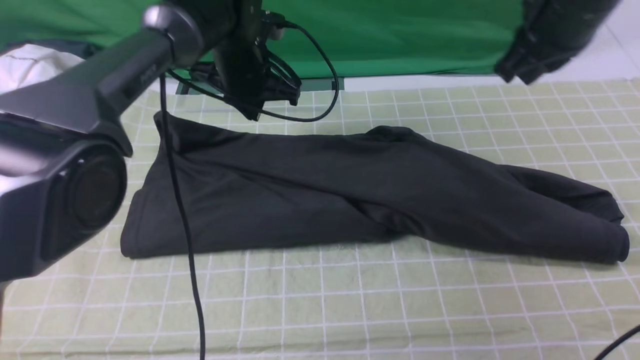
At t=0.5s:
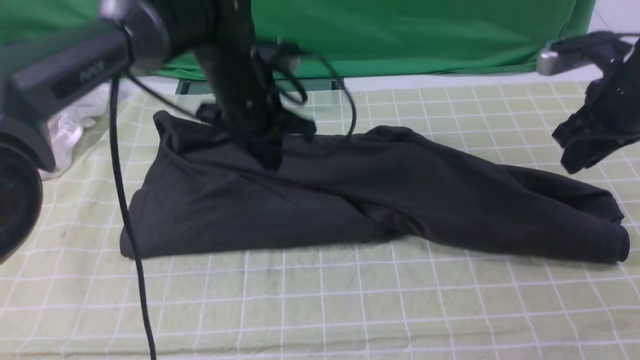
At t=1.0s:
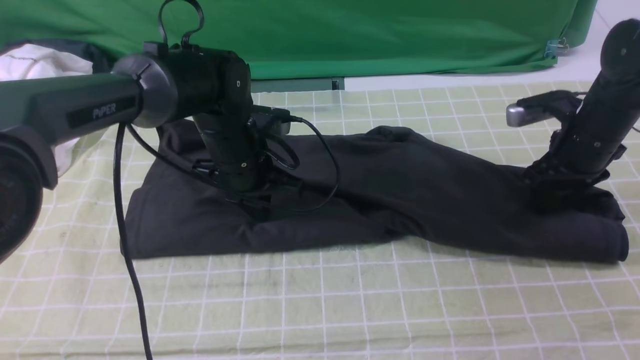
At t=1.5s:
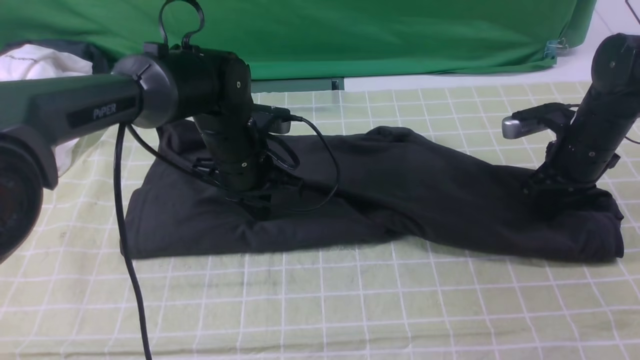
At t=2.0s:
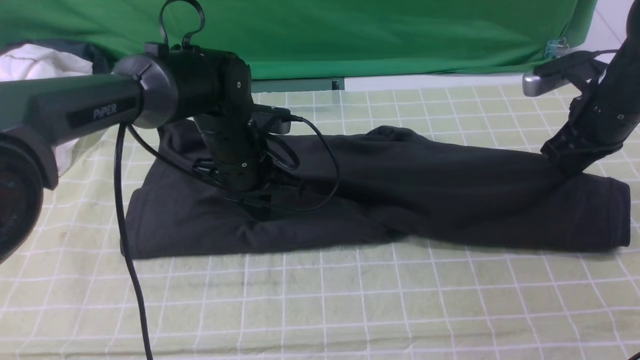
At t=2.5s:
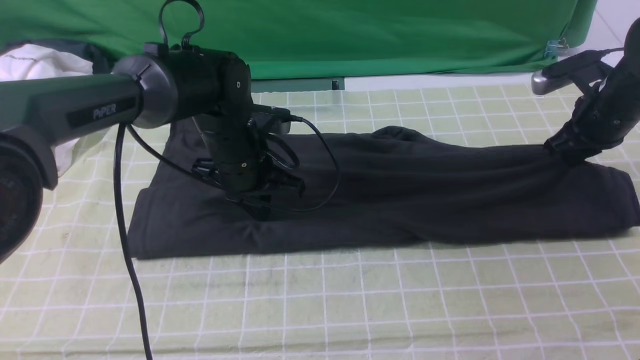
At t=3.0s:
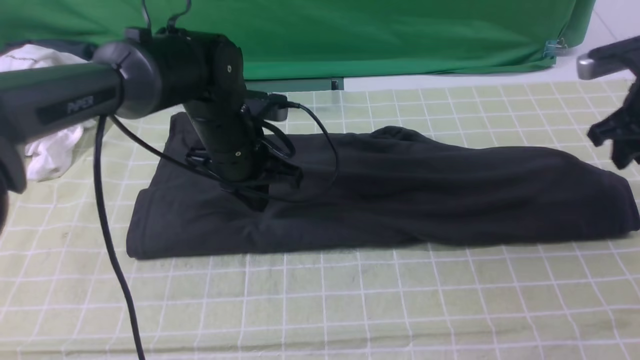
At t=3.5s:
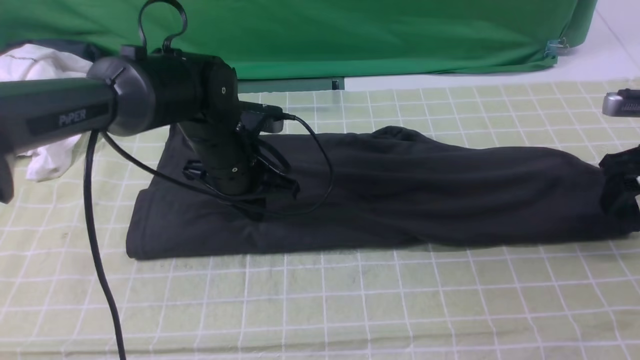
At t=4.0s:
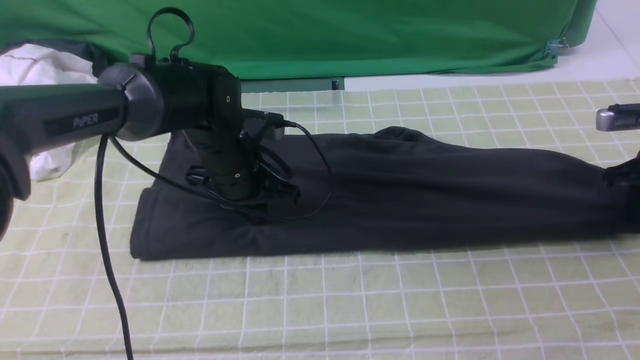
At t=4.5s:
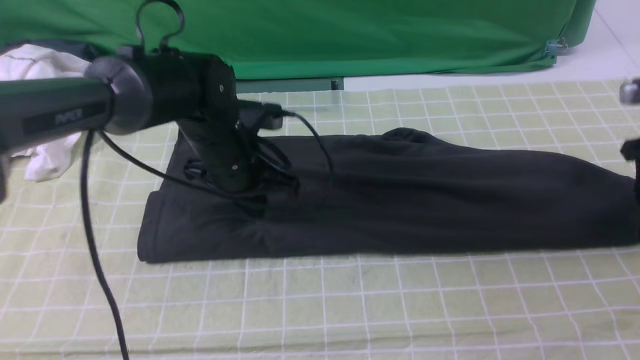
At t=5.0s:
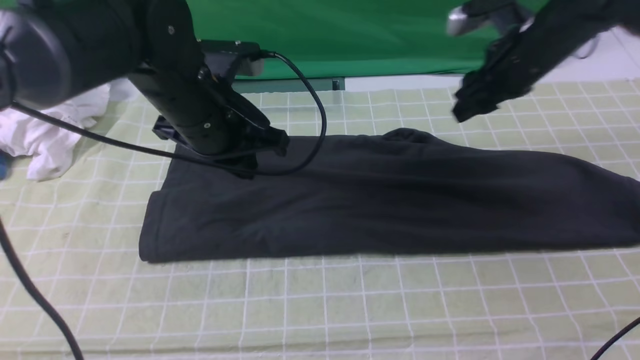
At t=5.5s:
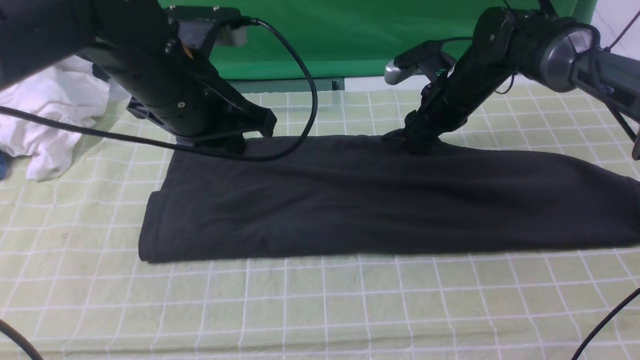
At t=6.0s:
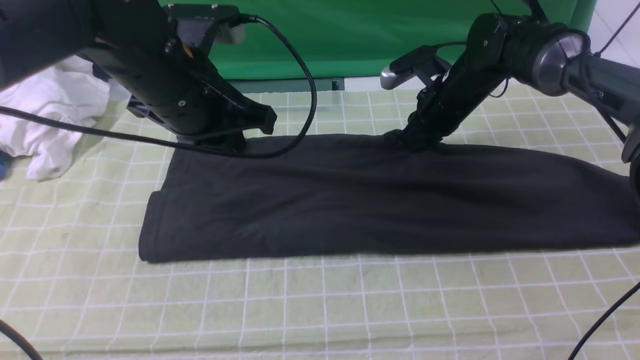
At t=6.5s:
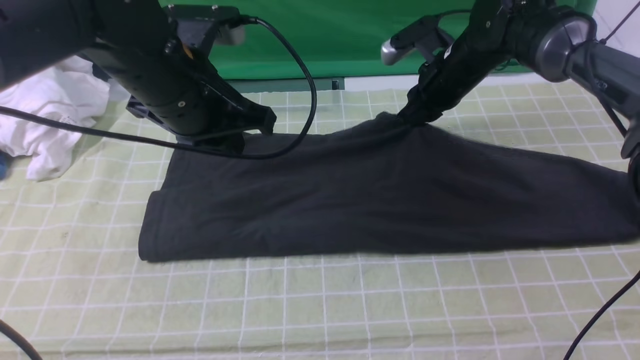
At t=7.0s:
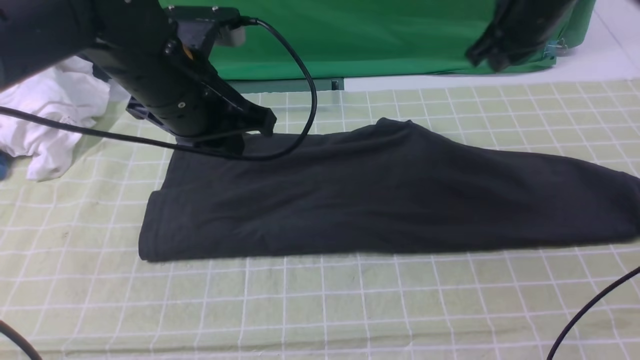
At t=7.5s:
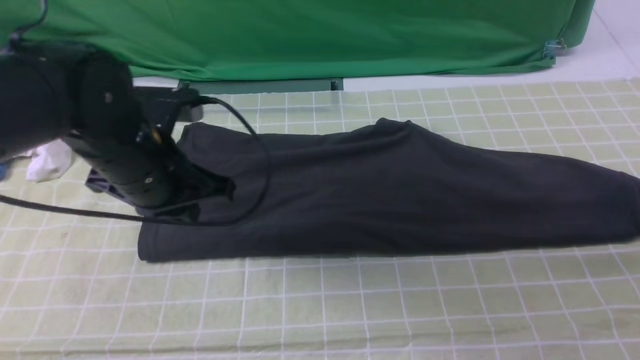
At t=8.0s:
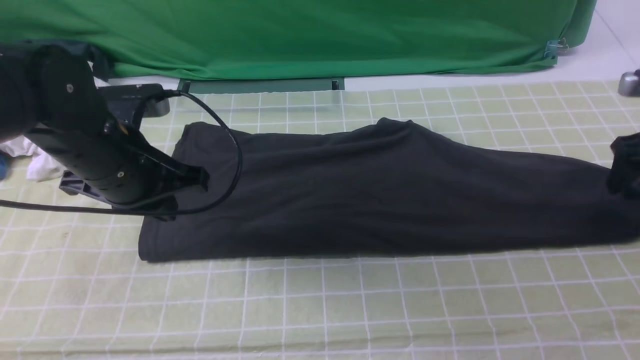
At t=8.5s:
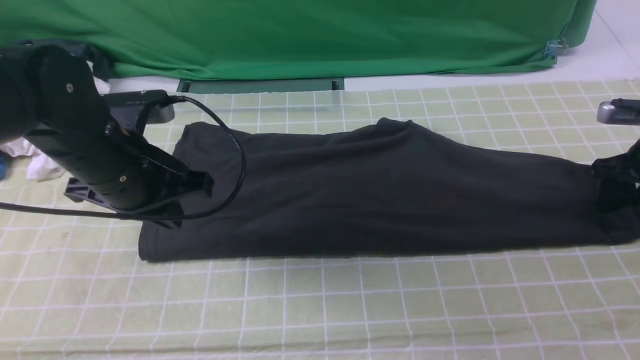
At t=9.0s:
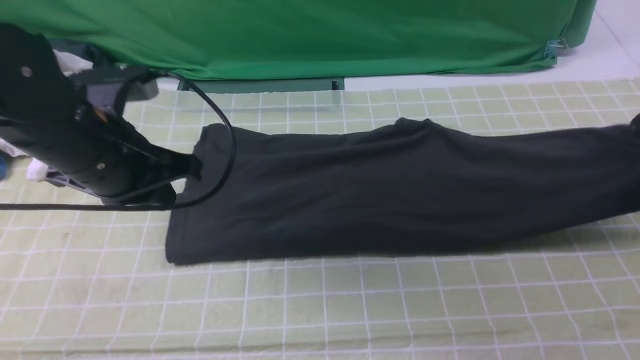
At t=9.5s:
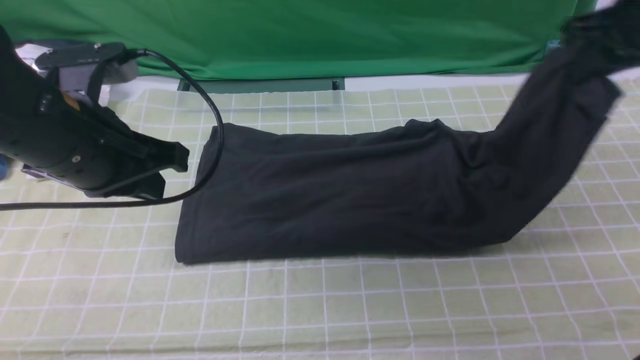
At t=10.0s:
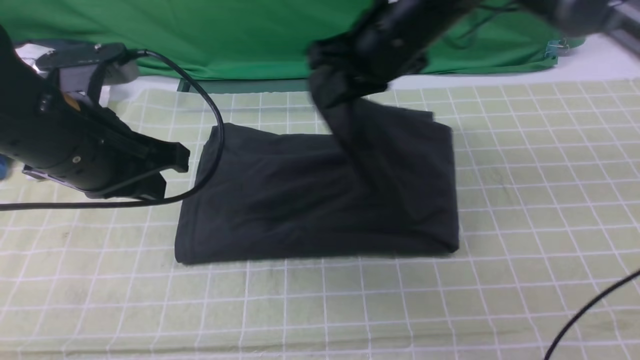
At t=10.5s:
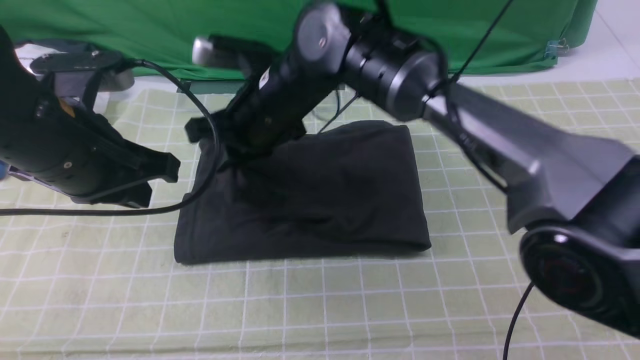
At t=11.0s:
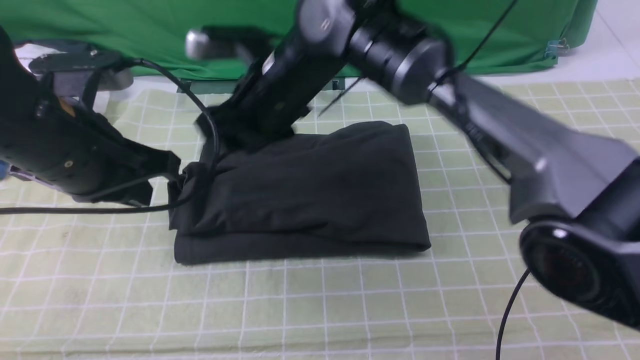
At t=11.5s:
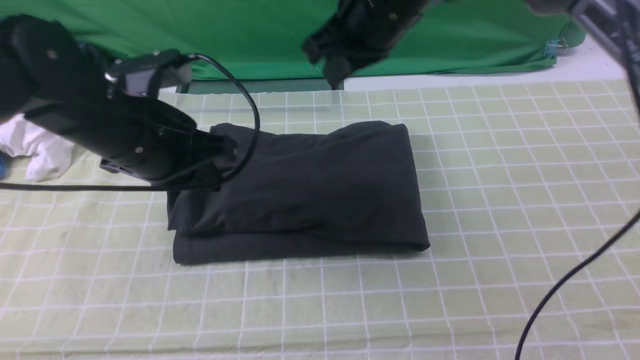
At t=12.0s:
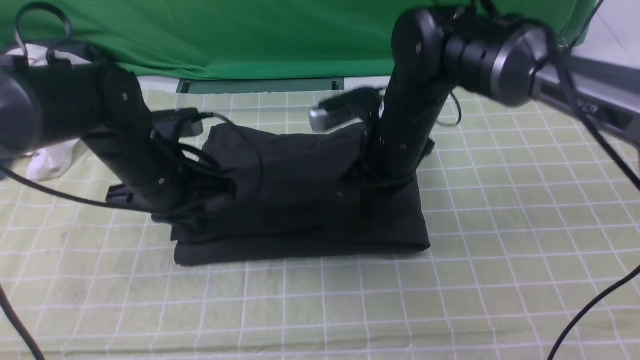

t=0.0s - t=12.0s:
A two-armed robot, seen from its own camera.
Step, t=0.0s - t=8.5s: use the right arm to clamp the right edge of the fabric.
Step, t=9.0s - t=11.0s: use the right arm to drag the right edge of the fabric to the left and folds it over the left edge.
t=0.0s - t=2.0s: The left gripper heads backward and downward, covering about 10 cm; the right gripper goes roughly 15 cm downward and to the right, and opens, then closes again.
t=2.0s - t=4.0s: The right gripper shifts about 10 cm to the right, and opens and closes again.
t=4.0s - t=6.0s: The right gripper is displaced to the left and forward by some 25 cm, and opens and closes again, while the left gripper goes some 15 cm upward.
t=6.0s - t=8.0s: The left gripper goes about 10 cm to the left and downward, while the right gripper shifts some 25 cm to the right, and opens up.
t=8.0s - t=10.0s: The right gripper is displaced to the left by roughly 35 cm, and closes its fingers, while the left gripper shifts about 5 cm upward.
t=10.0s - t=12.0s: The left gripper heads downward and forward, covering some 15 cm. Meanwhile the right gripper is displaced downward by some 10 cm, travels to the left and back again, about 10 cm each way, and opens, then closes once more.

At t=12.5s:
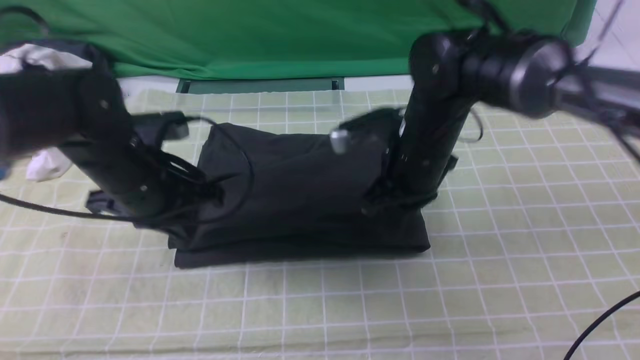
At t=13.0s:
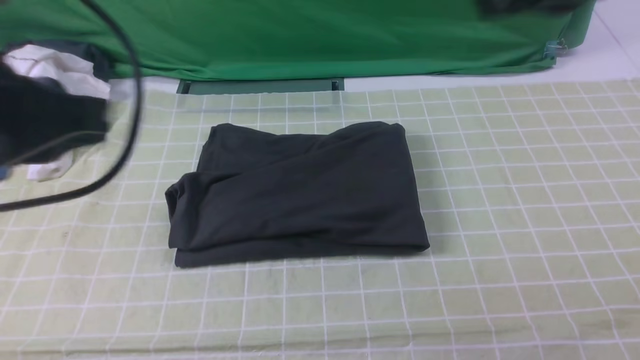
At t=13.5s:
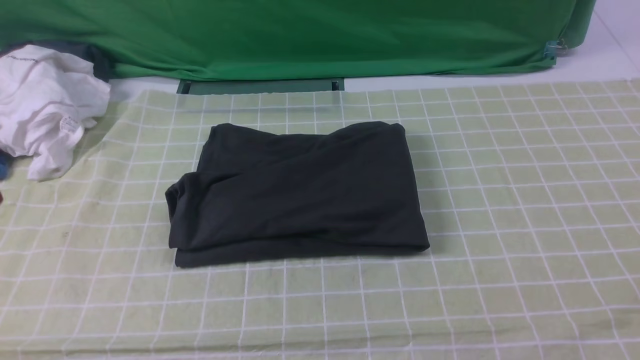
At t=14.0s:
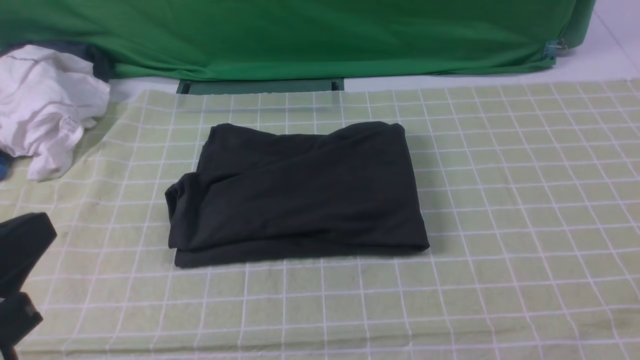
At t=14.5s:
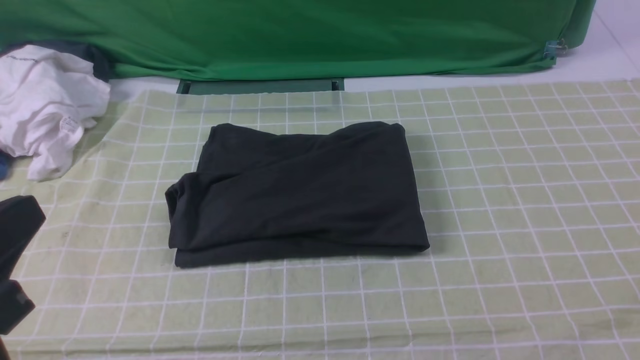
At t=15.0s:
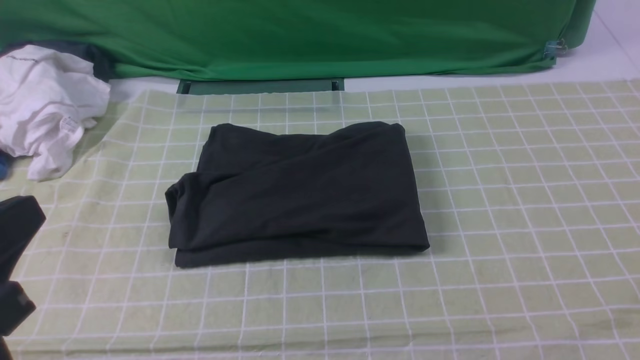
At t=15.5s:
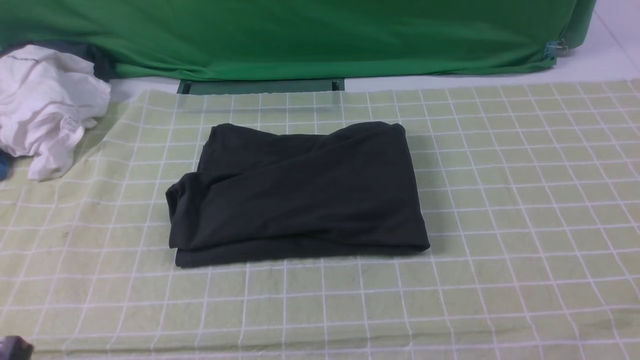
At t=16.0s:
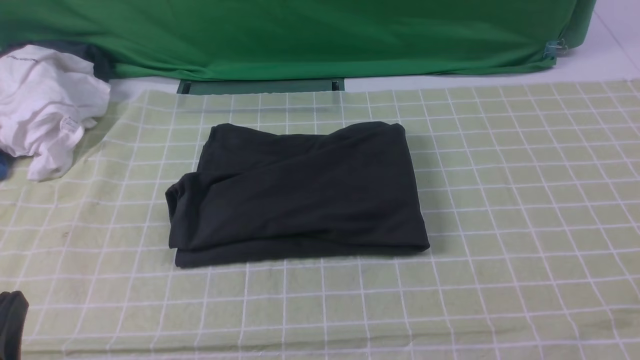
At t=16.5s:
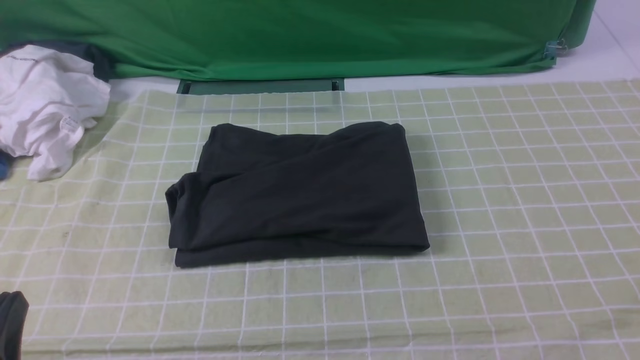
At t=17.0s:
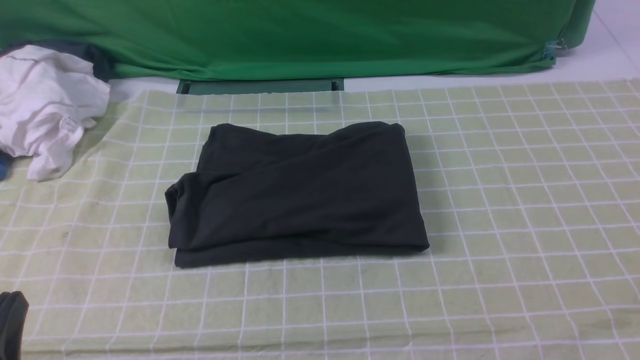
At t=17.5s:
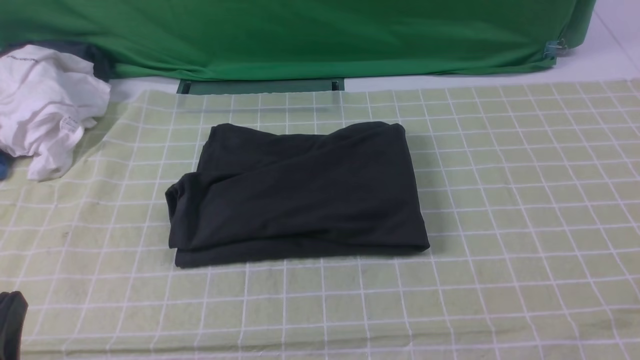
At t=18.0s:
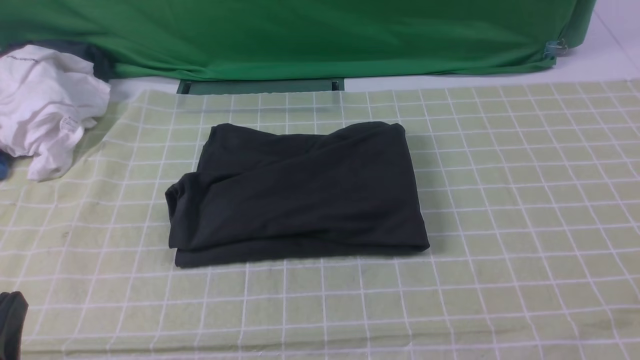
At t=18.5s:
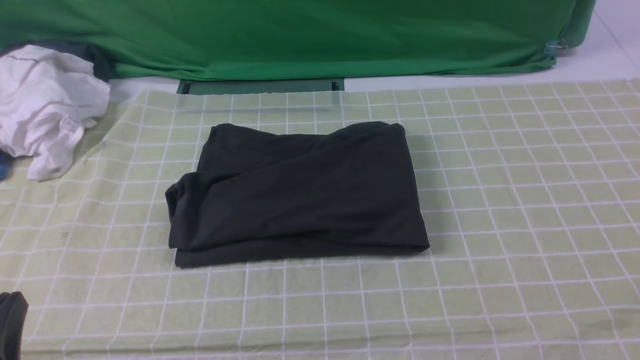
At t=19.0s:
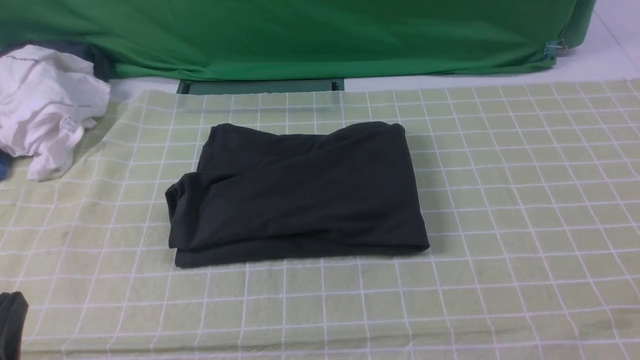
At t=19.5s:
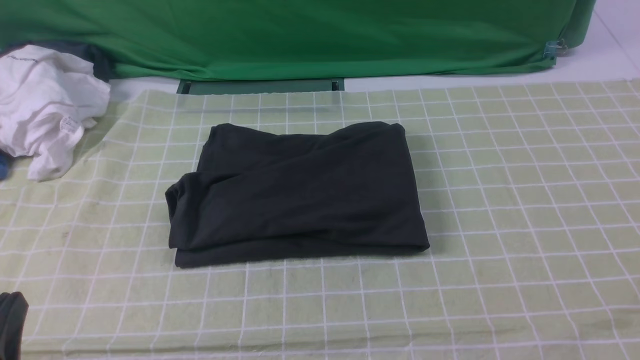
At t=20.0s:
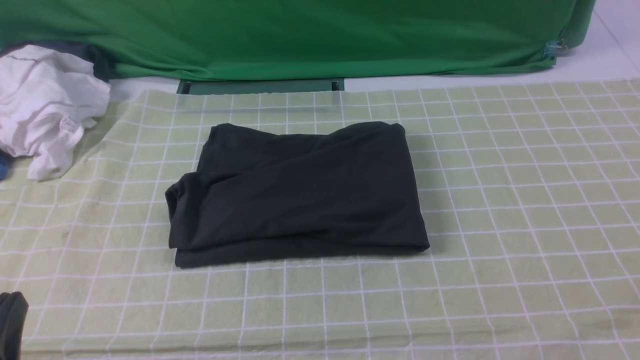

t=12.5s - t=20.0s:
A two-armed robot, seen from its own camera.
t=12.5s - t=14.5s: The right gripper heads backward and to the right, covering some 40 cm; the left gripper goes roughly 25 cm backward.
t=14.5s - t=16.5s: The left gripper goes some 10 cm downward.
t=18.0s - t=20.0s: Both grippers stay put.
